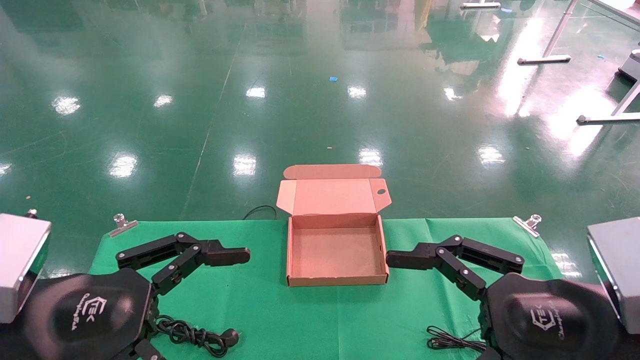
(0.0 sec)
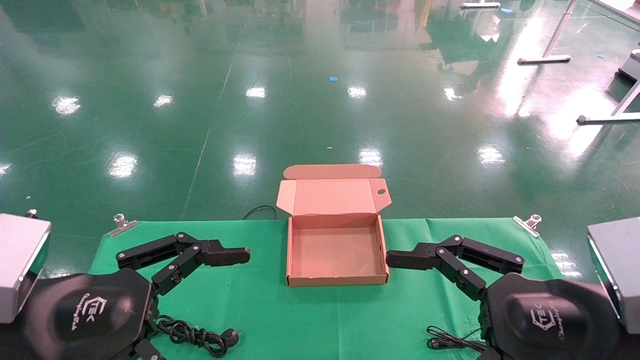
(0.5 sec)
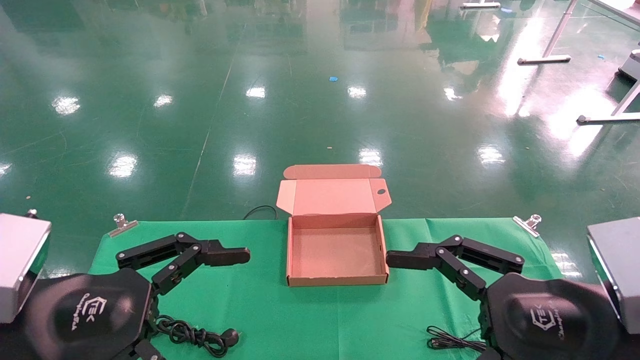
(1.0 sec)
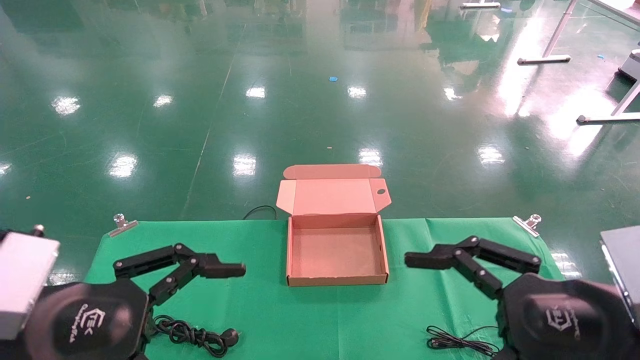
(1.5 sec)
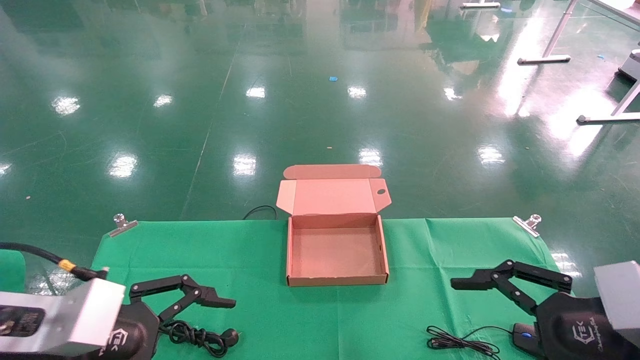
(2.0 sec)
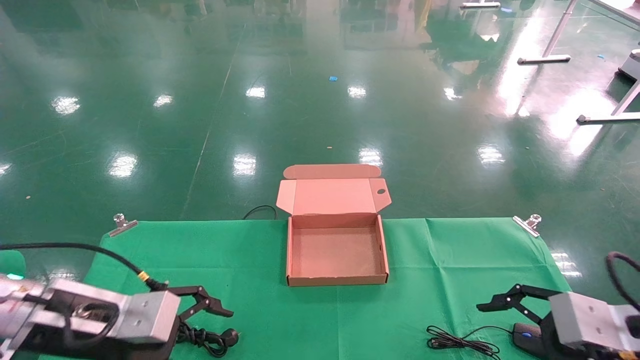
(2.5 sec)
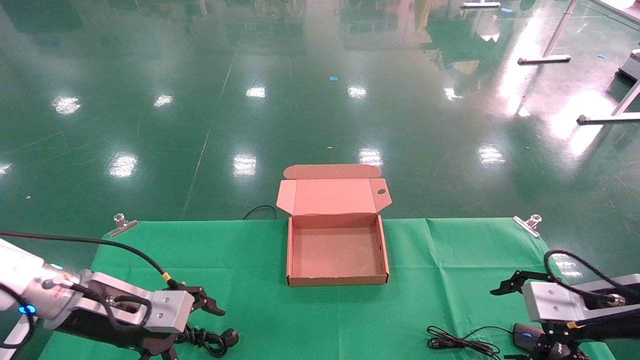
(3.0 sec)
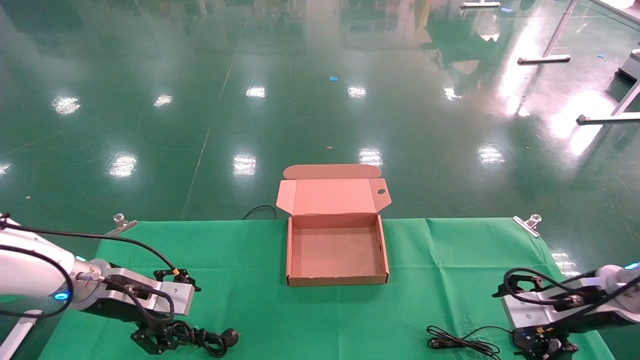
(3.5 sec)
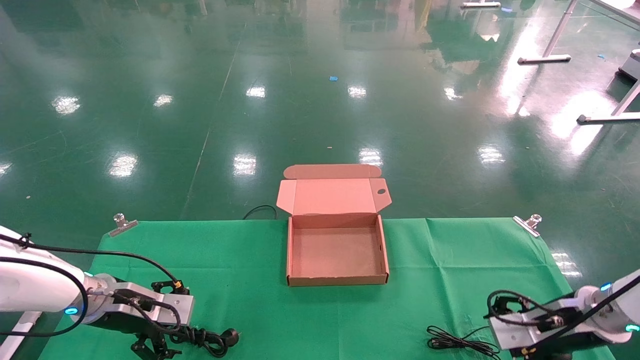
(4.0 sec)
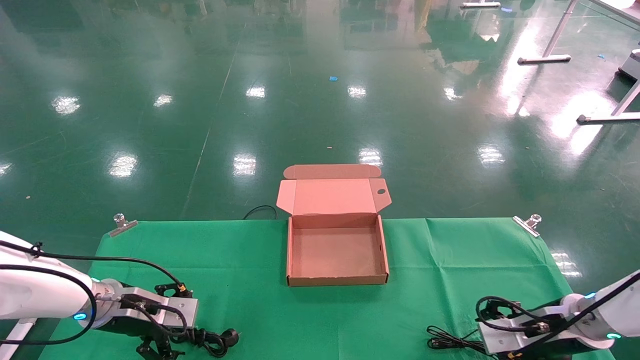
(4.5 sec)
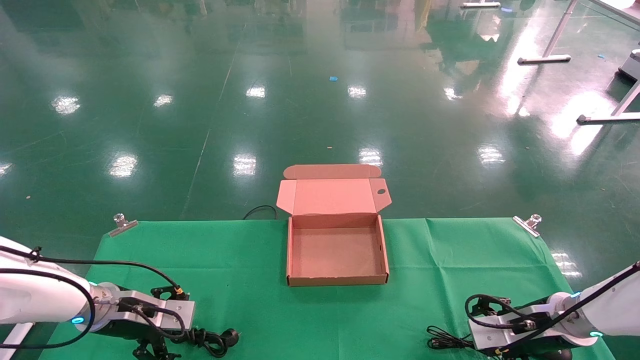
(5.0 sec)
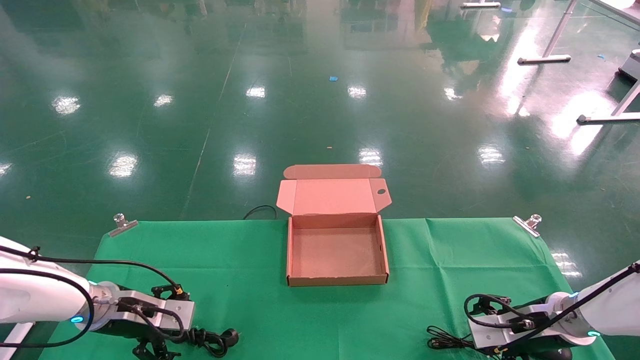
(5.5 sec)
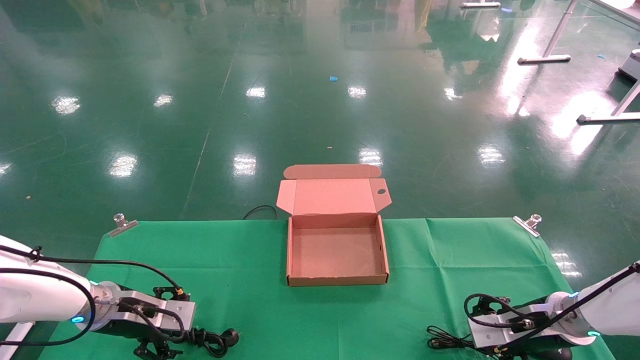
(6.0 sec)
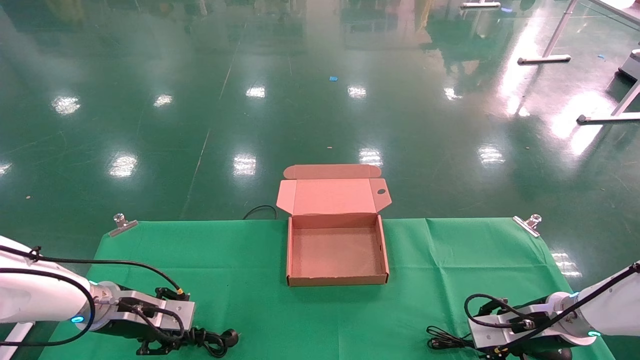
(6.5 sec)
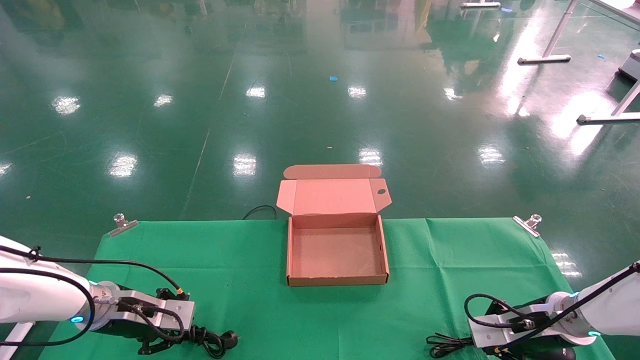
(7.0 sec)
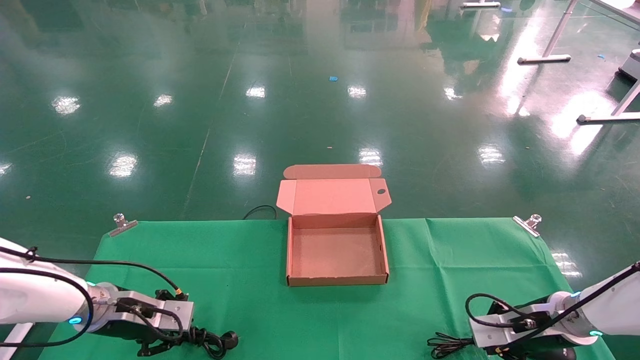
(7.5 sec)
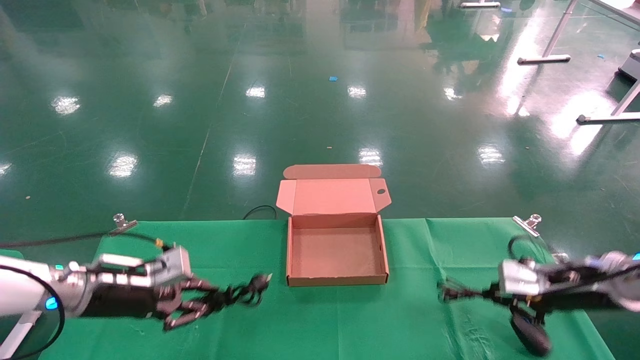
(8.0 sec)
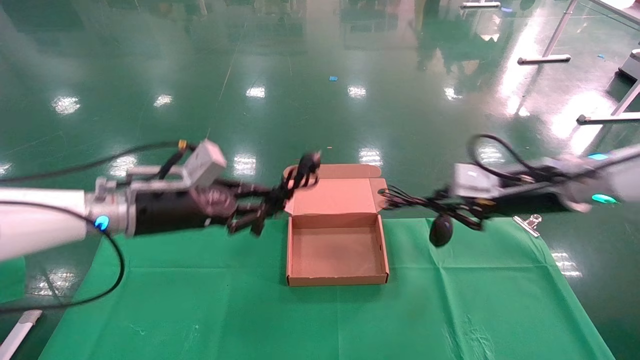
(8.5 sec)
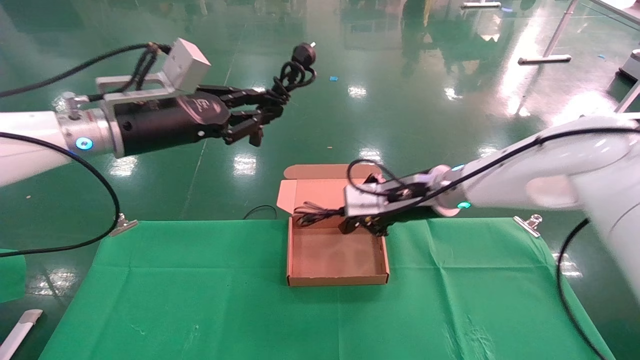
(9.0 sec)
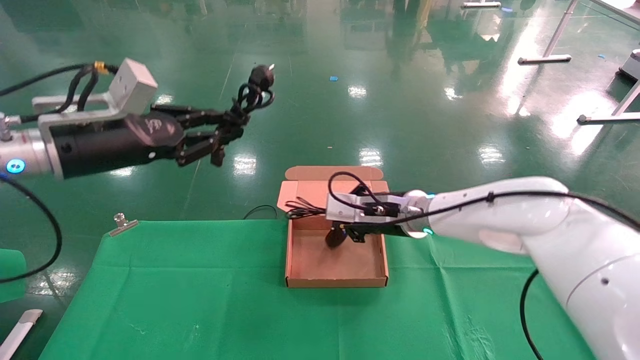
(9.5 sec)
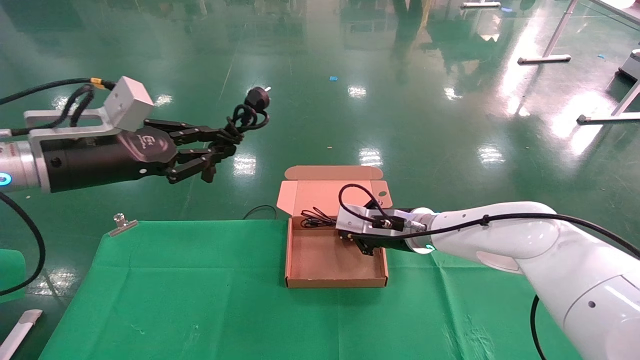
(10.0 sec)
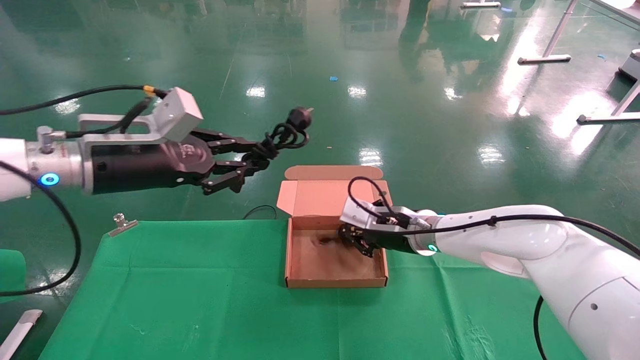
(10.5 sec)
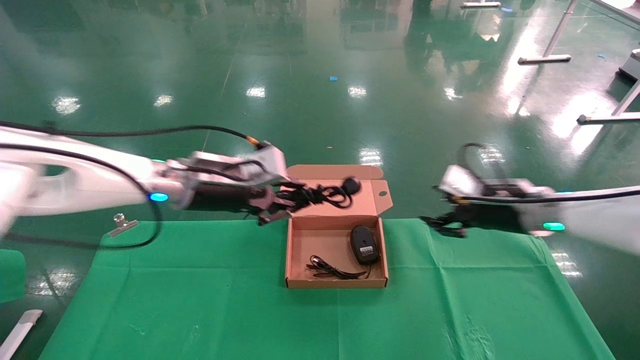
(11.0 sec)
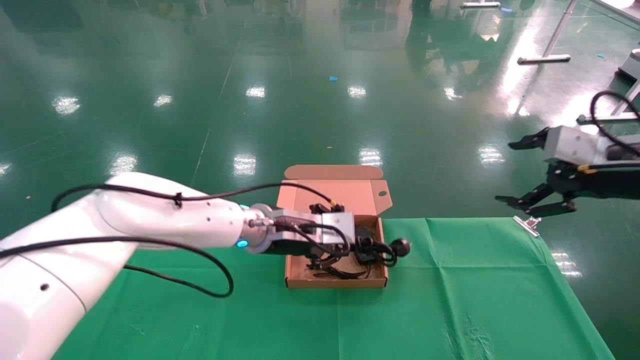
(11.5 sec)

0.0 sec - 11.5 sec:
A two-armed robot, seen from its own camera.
Step, 1.5 sec - 6.5 sec: Grab and lift both the mouse and power cord from the accessory packaging area at the same time.
0.0 sec - 2.0 sec: The right gripper moves to the right, about 5 cm.
2.0 sec - 4.0 sec: The two grippers go some 20 cm forward and downward.
4.0 sec - 6.0 sec: The grippers make only small movements.
6.0 sec - 7.5 sec: The left gripper closes; the right gripper closes.
7.5 sec - 9.5 sec: The right gripper moves to the left and upward, about 25 cm, while the left gripper moves upward, roughly 25 cm.
9.5 sec - 11.5 sec: The right gripper travels to the right and backward by some 30 cm, and opens up; the left gripper shifts some 25 cm to the right and downward.

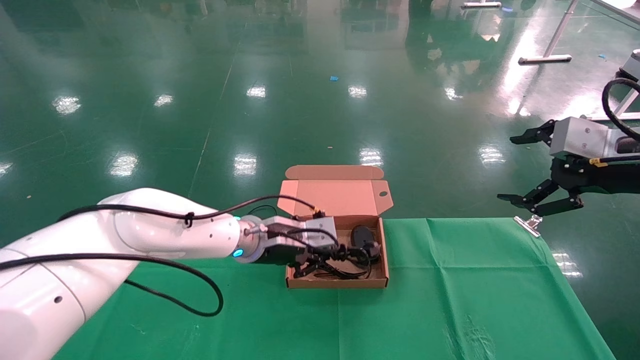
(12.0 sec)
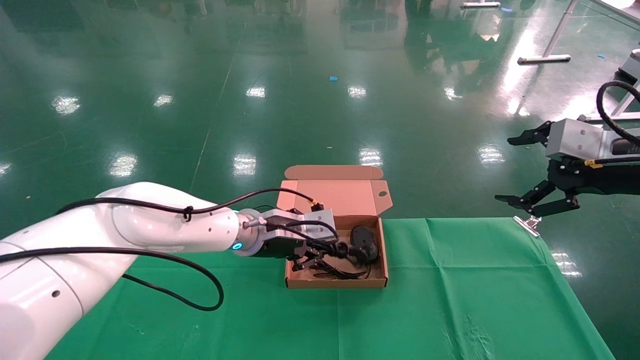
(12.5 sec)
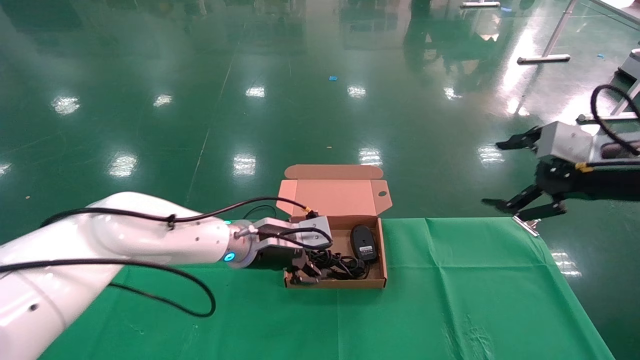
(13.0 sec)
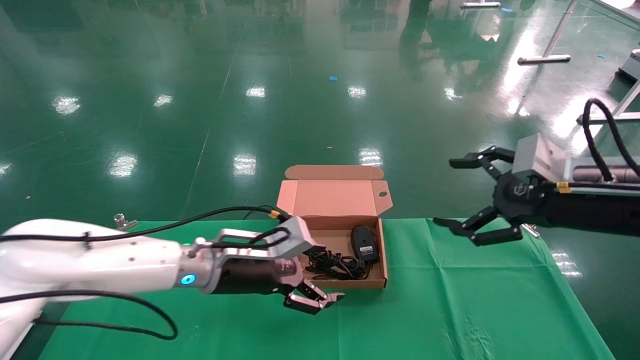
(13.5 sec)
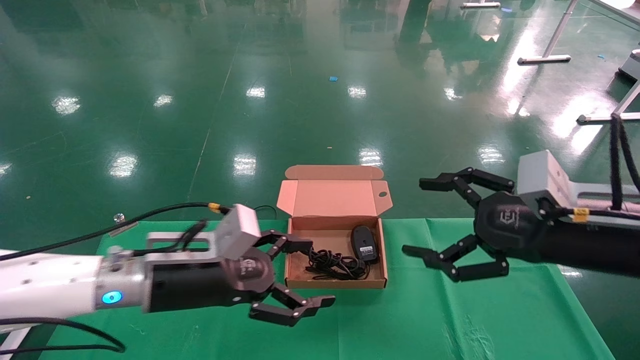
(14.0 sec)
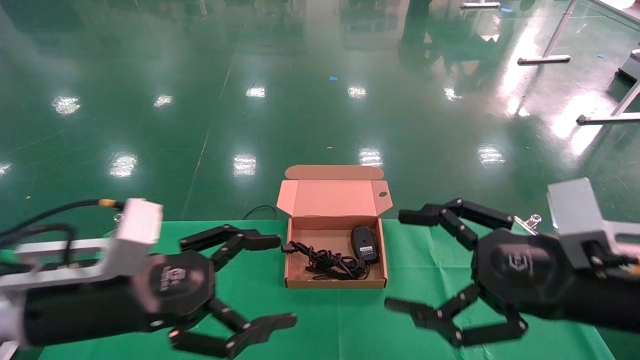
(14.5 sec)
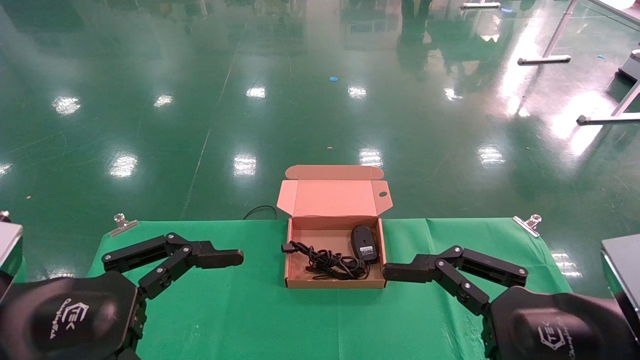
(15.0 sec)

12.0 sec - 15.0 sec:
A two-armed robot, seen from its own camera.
12.0 sec - 13.5 sec: The left gripper goes some 5 cm backward, and opens. The right gripper goes about 5 cm to the left.
13.5 sec - 15.0 sec: The right gripper goes roughly 15 cm backward and to the left, while the left gripper is displaced backward and to the left by roughly 25 cm.
